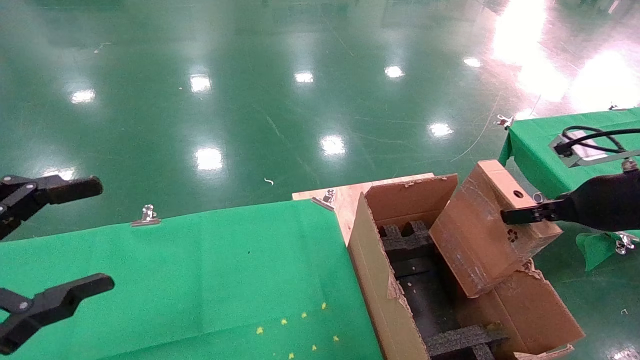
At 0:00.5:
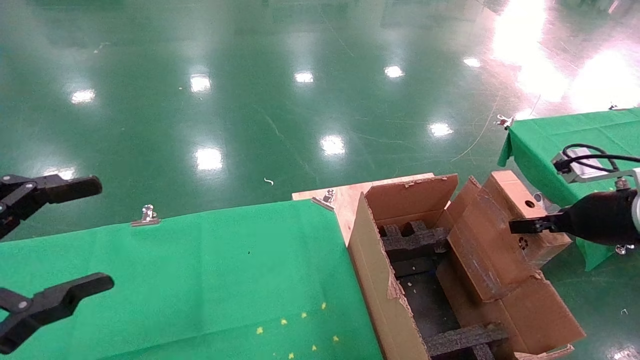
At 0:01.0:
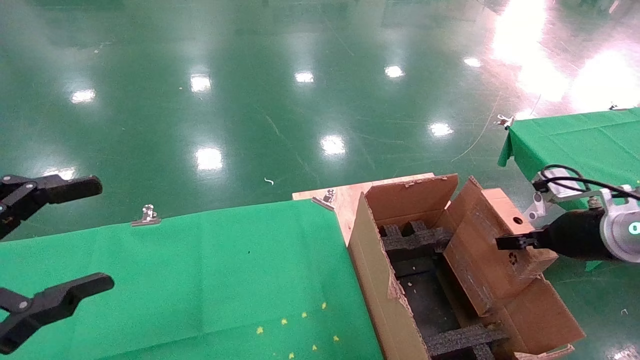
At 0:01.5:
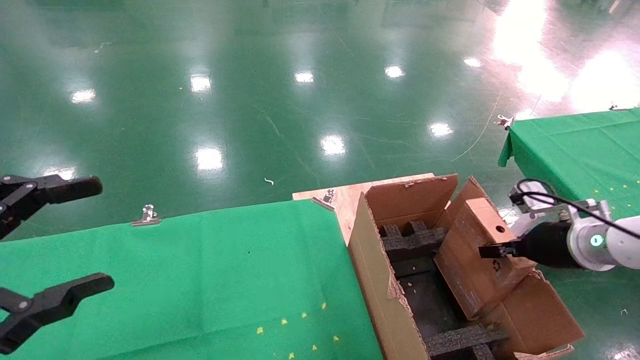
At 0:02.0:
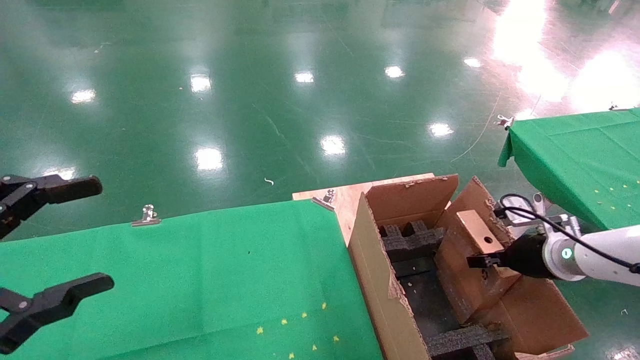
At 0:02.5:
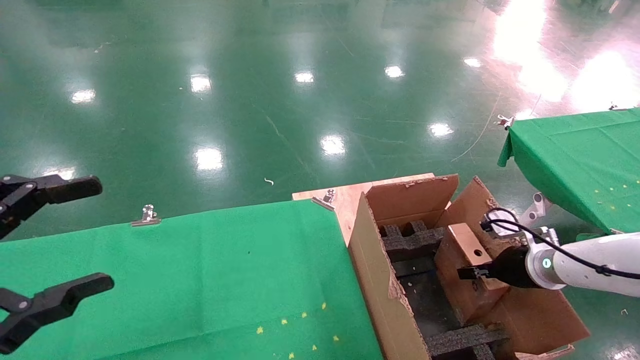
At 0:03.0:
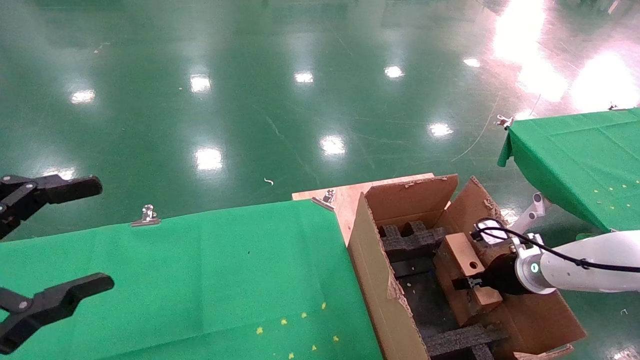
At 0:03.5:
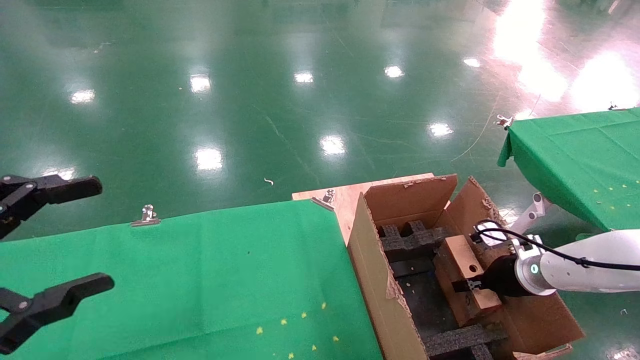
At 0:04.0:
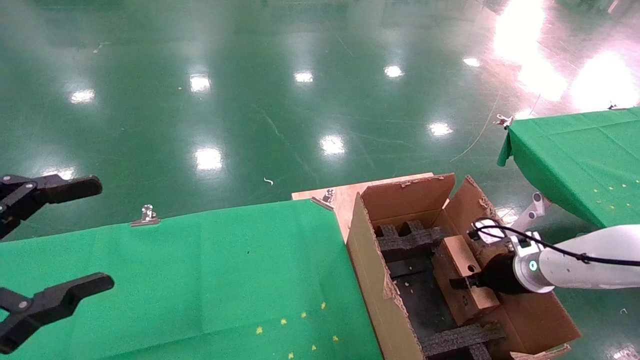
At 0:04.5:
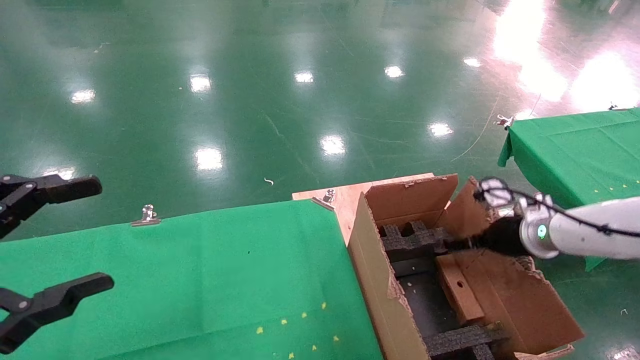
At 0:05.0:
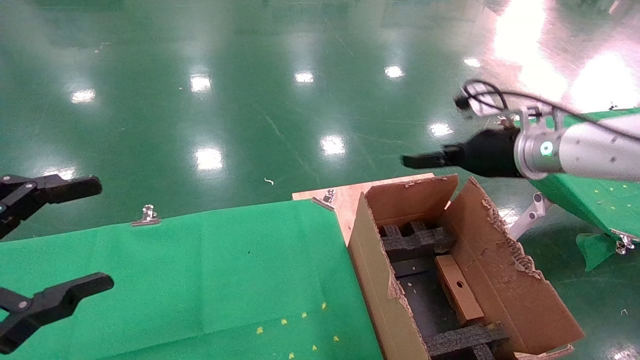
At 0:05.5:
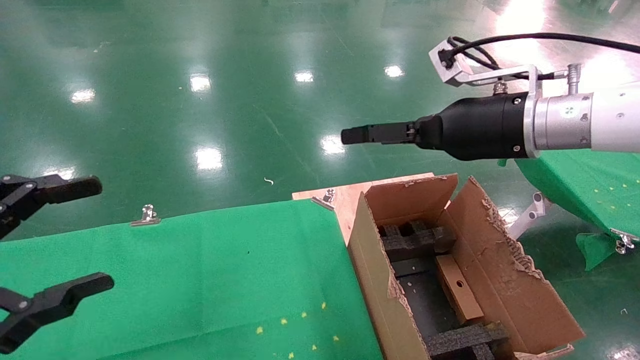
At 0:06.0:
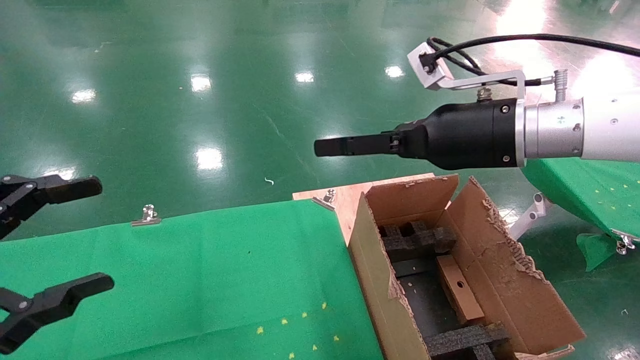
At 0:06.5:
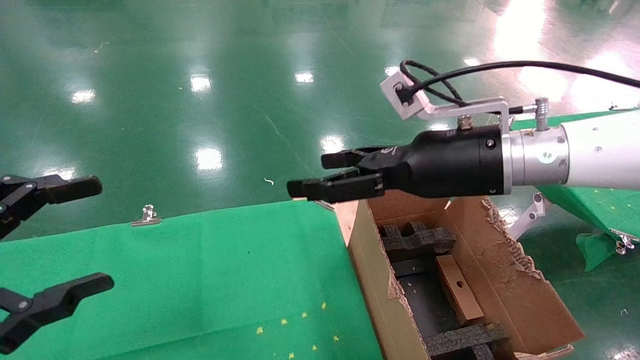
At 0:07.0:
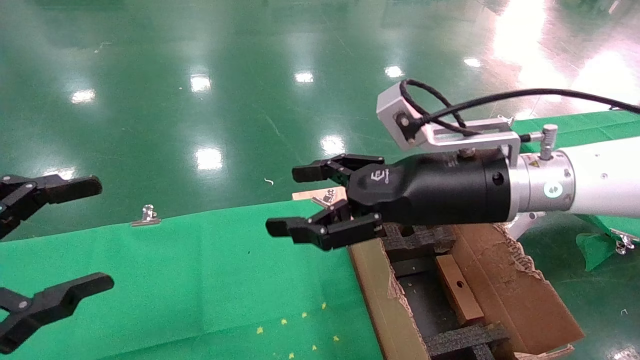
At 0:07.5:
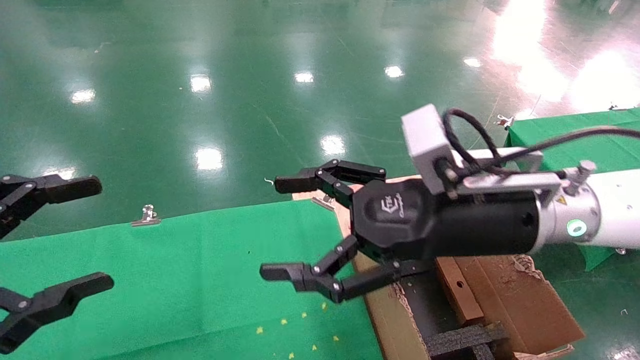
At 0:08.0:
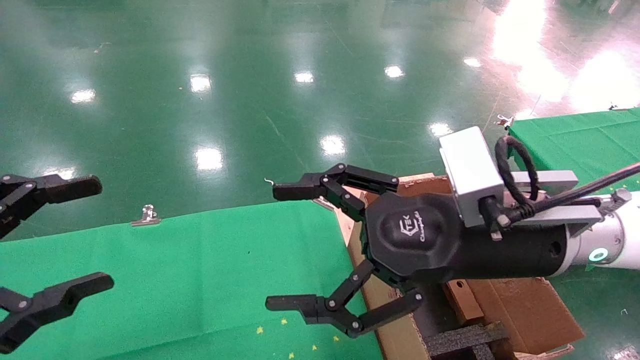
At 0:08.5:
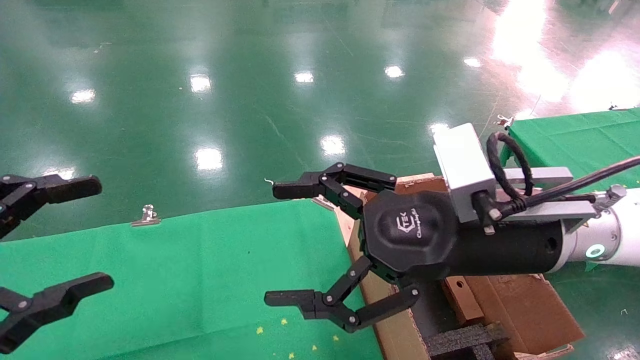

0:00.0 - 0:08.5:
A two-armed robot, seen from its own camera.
Task of the whole recording: using a robotic arm to pick up a cardboard box and palace it the carton.
Step, 0:00.0 - 0:04.0: Place the mouse and the power cord paper box into the container.
0:00.0 - 0:02.0: The right gripper travels downward and forward by roughly 15 cm.
0:02.0 - 0:04.0: The right gripper shifts by approximately 5 cm.
0:04.0 - 0:06.5: The right gripper goes some 30 cm upward and to the left, and opens up.
0:06.5 - 0:08.5: The right gripper shifts roughly 5 cm backward.
